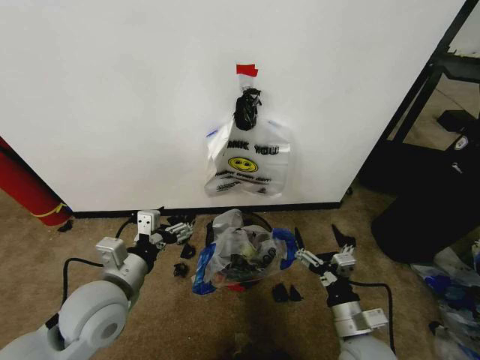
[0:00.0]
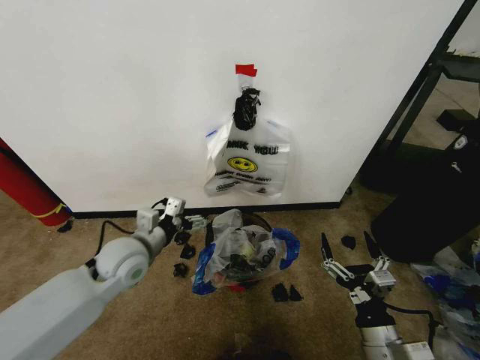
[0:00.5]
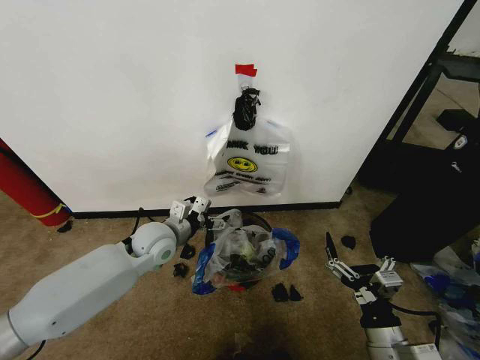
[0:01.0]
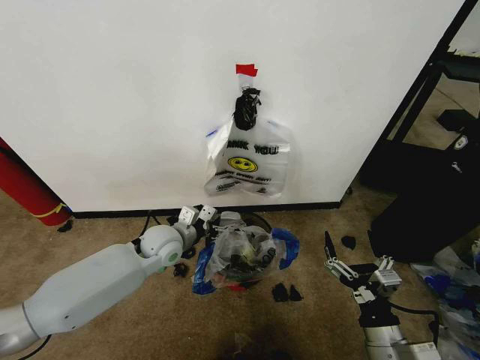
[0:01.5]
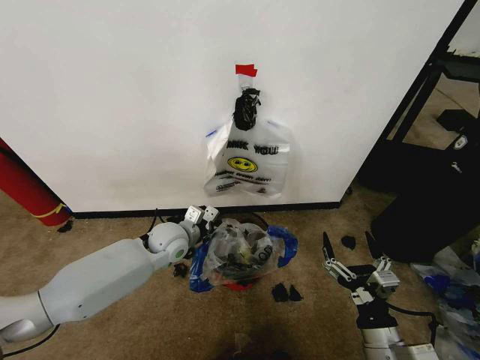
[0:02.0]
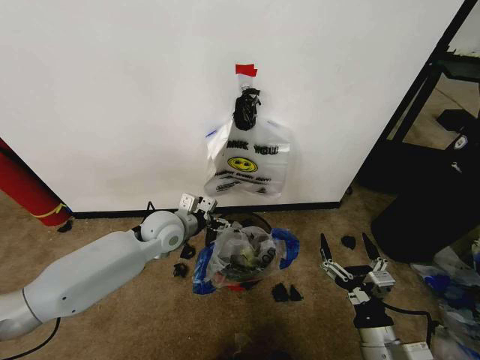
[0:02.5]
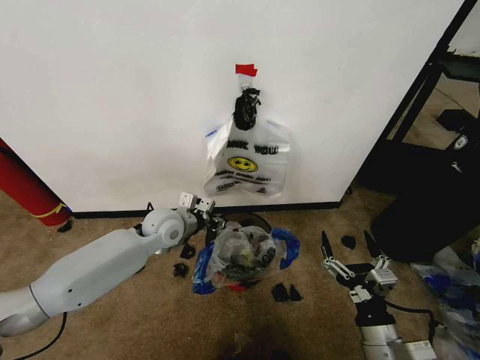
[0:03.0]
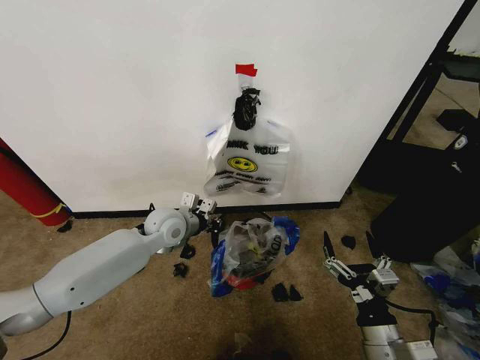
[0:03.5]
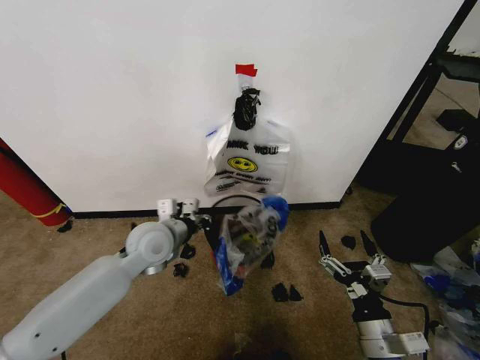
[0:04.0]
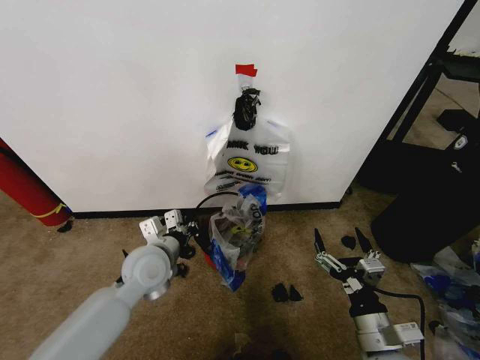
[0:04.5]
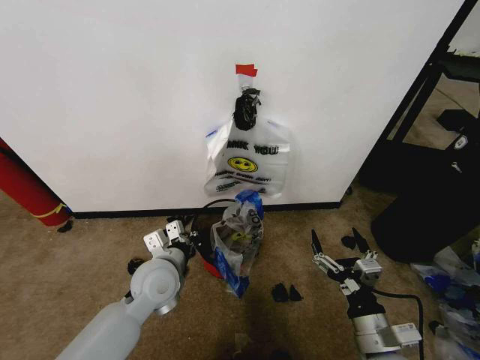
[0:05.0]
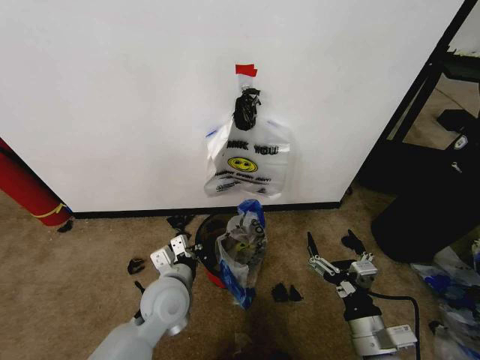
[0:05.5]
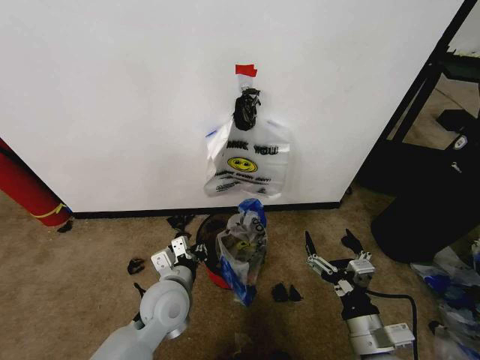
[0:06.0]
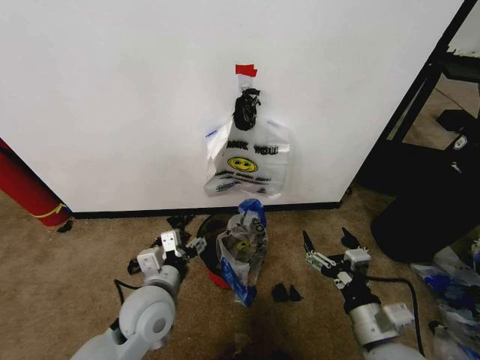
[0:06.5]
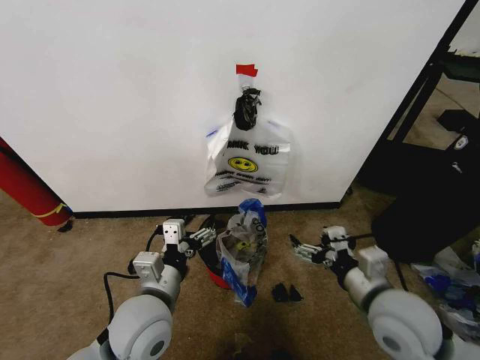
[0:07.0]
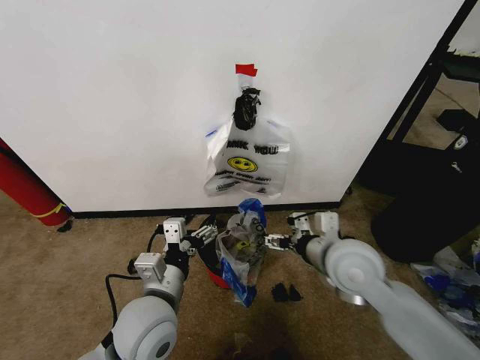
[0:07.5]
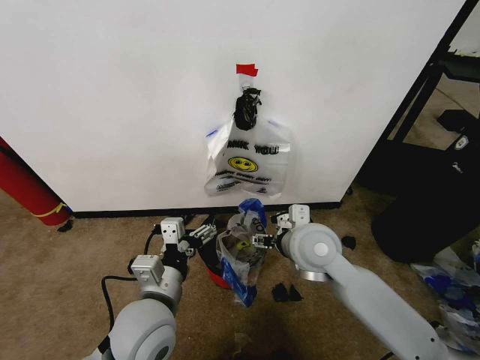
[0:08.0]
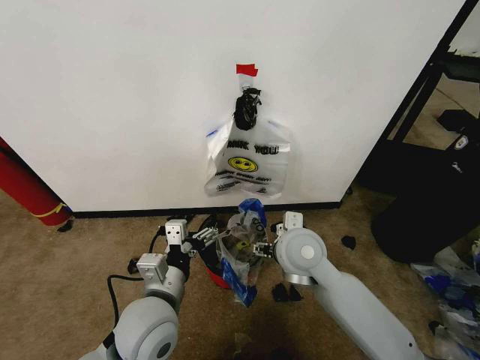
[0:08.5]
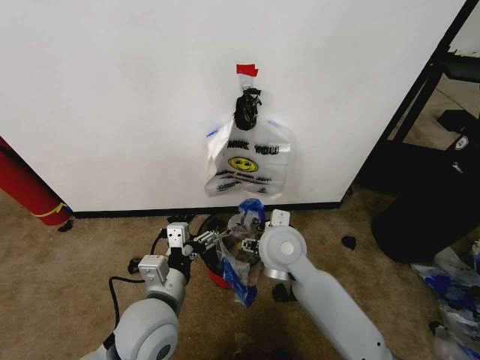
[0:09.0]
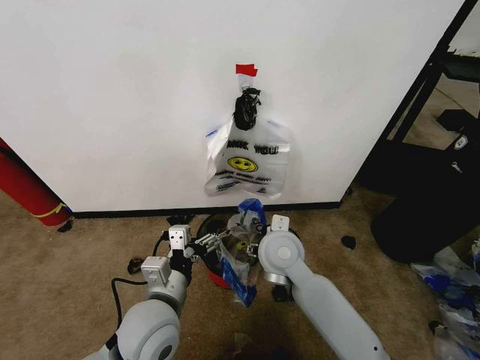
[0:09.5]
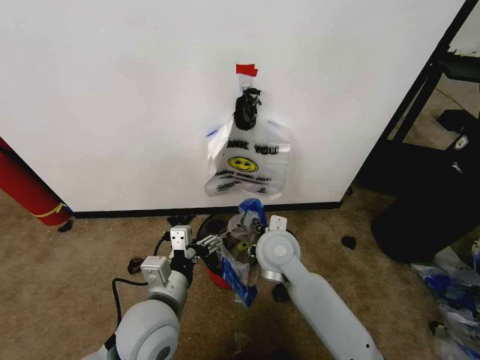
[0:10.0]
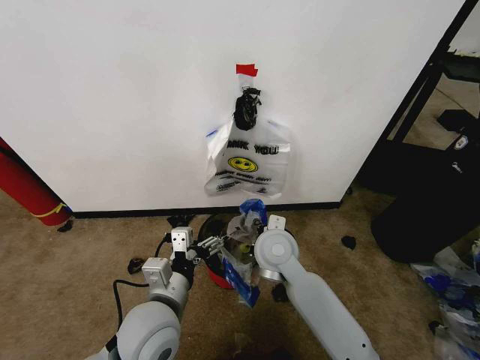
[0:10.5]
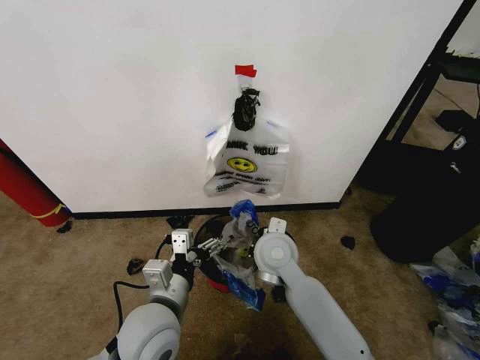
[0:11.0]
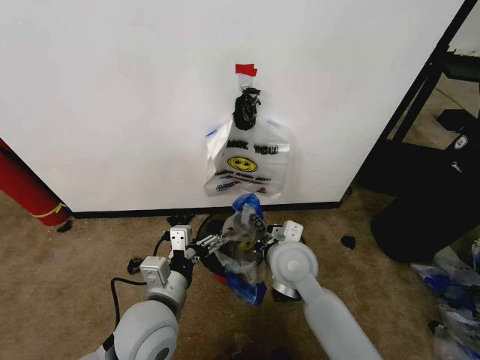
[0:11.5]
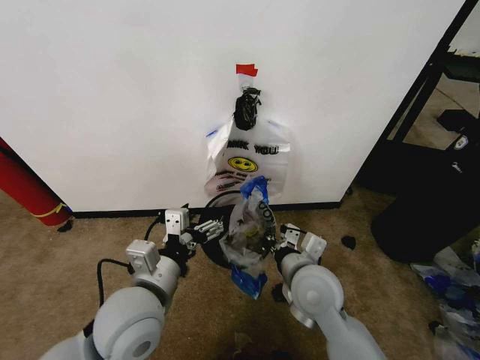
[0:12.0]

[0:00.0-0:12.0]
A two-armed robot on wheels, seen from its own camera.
Task of the whole recording: Pick up the garbage bag from the wall and place it over the trash bin.
0:00.0 to 0:02.0: The left gripper moves forward and downward, roughly 20 cm; the right gripper moves backward, about 5 cm.
0:02.0 to 0:04.0: The left gripper heads upward, covering some 5 cm, and closes up.
0:04.0 to 0:06.0: The left gripper travels backward and downward by some 15 cm.
0:06.0 to 0:08.0: The right gripper goes approximately 25 cm forward, upward and to the left; the left gripper travels upward and backward by some 10 cm, and opens its fingers.
0:08.0 to 0:10.0: The right gripper heads to the left, covering roughly 5 cm.
0:10.0 to 0:12.0: The right gripper travels backward and to the right by roughly 10 cm, and closes up.

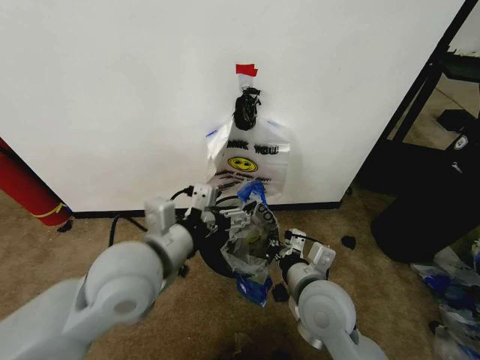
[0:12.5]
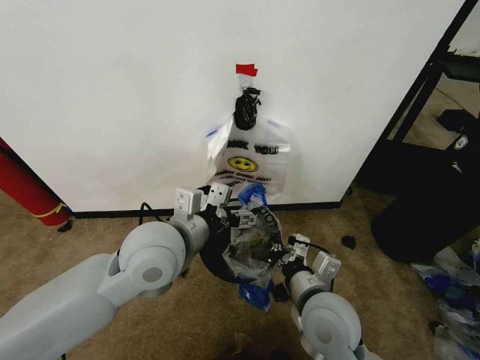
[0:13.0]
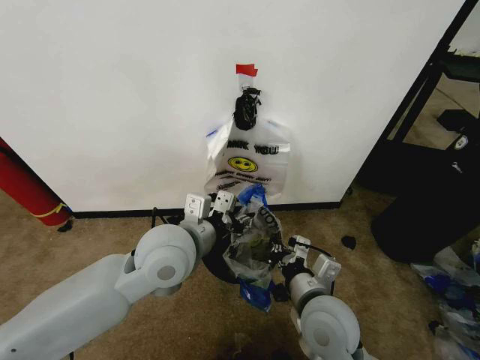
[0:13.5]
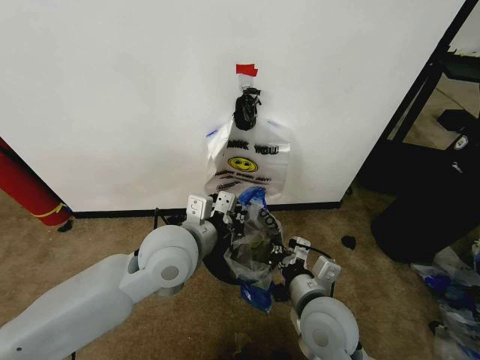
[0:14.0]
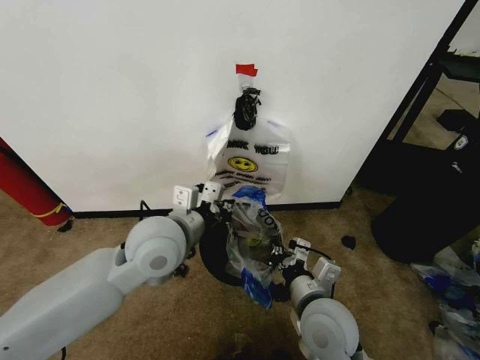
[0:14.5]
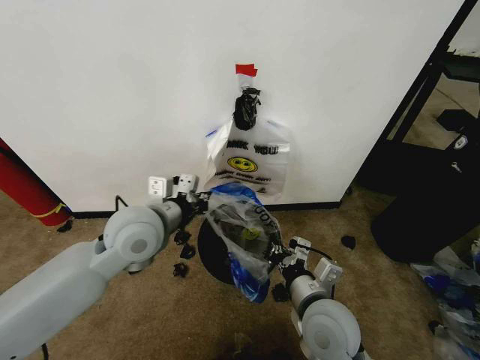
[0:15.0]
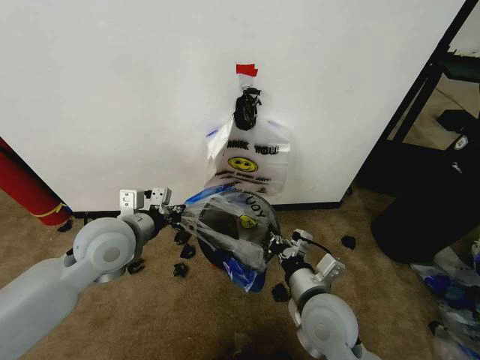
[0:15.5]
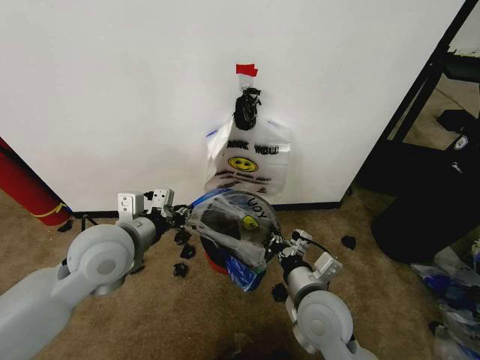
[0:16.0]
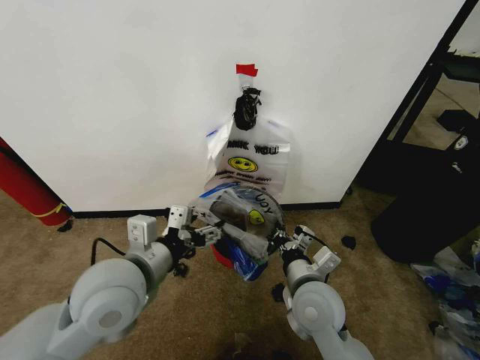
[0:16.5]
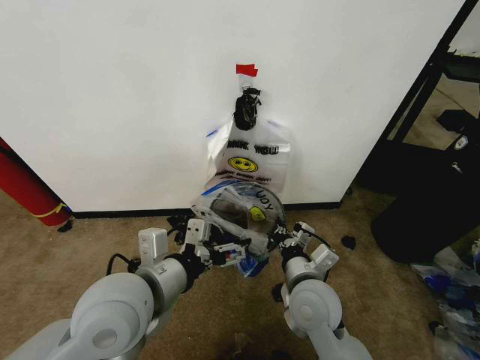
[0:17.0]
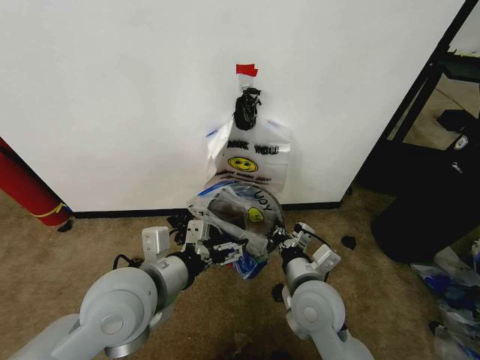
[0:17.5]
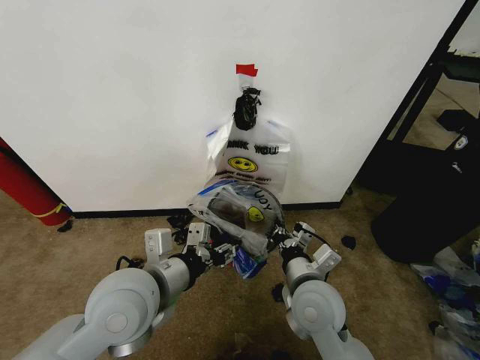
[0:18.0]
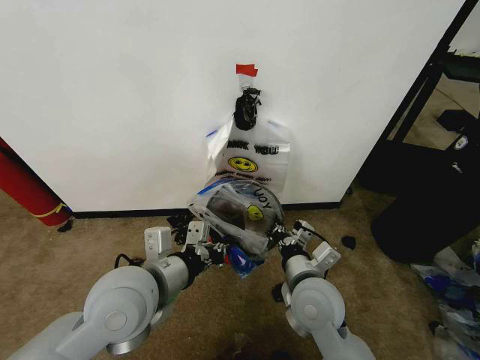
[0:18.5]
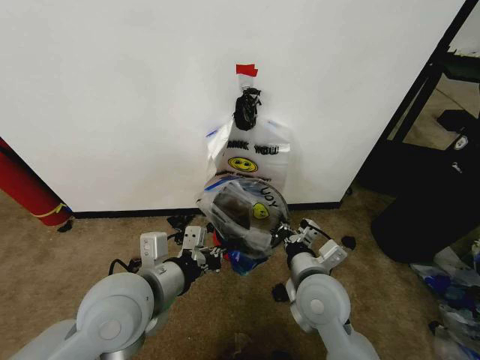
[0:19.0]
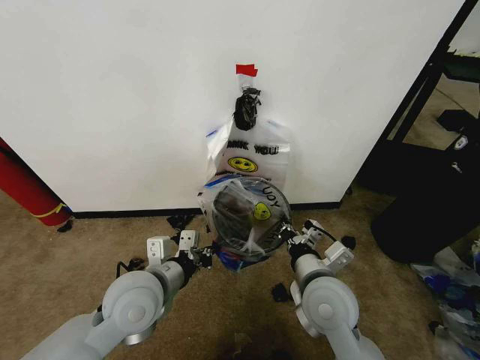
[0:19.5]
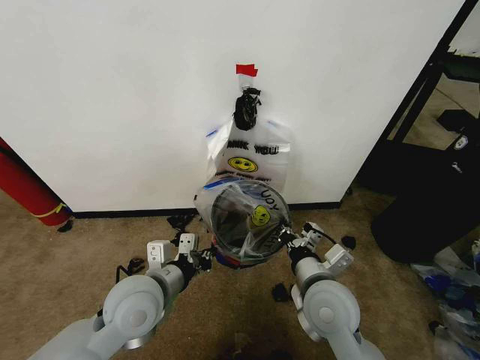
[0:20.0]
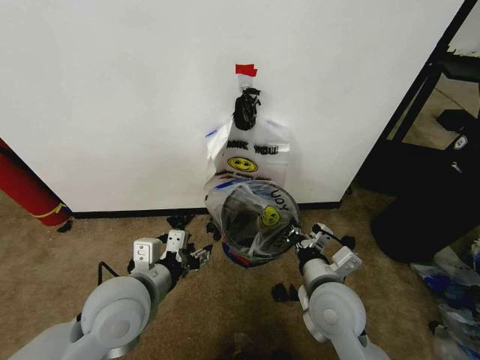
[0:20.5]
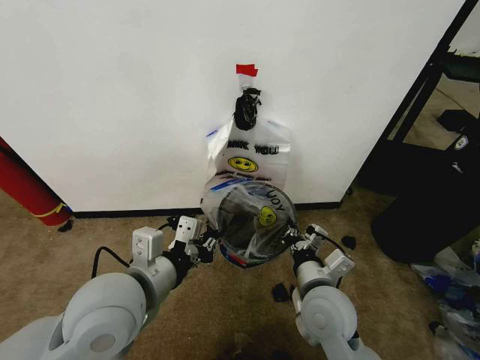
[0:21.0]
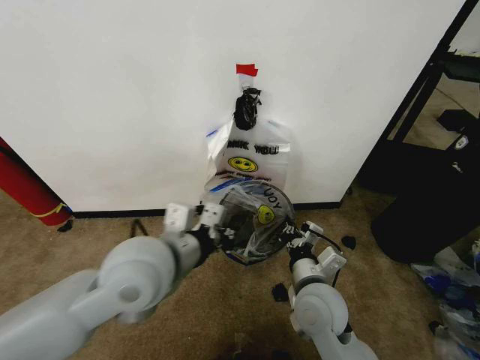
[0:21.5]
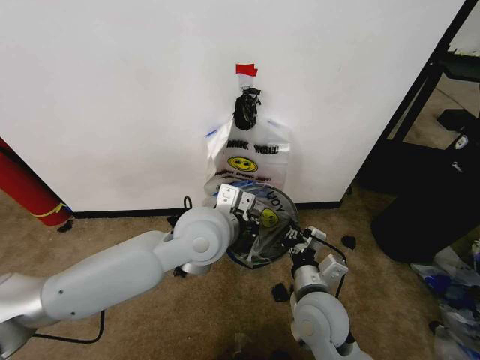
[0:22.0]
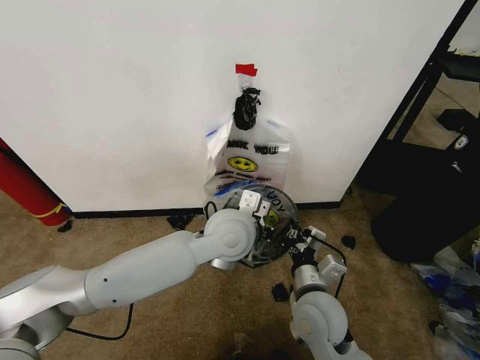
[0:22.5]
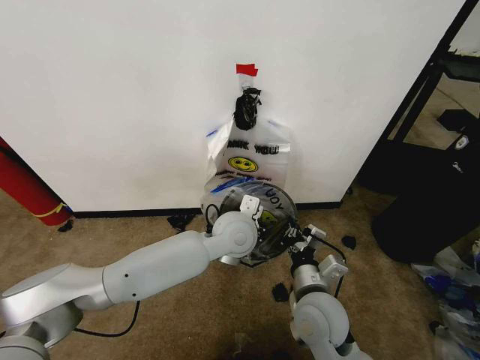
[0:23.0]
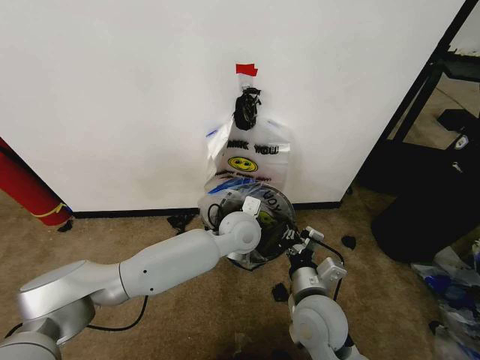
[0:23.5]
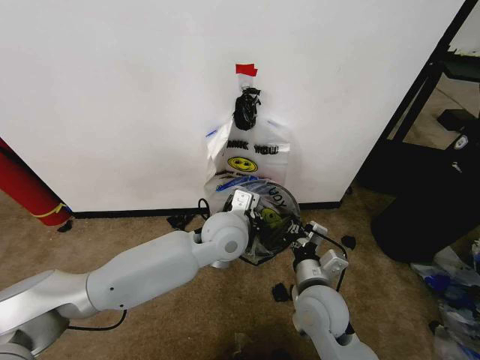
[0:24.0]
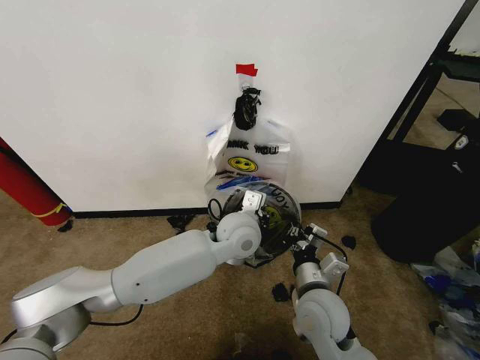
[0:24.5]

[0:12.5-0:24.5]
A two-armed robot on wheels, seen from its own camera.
Task of the whole recording: Pick up the garbage bag from the wall and place it over the trash bin.
0:12.5 to 0:14.5: The left gripper shifts roughly 5 cm forward, and closes up.
0:14.5 to 0:16.5: The left gripper moves backward and to the left, about 10 cm, and opens its fingers.
0:16.5 to 0:18.5: The left gripper closes its fingers.
0:18.5 to 0:20.5: The left gripper opens up.
0:20.5 to 0:22.5: The left gripper moves to the right and forward, some 20 cm, and closes up.
0:22.5 to 0:24.5: The left gripper shifts roughly 5 cm downward.

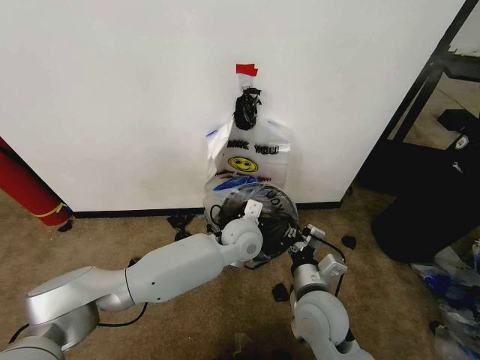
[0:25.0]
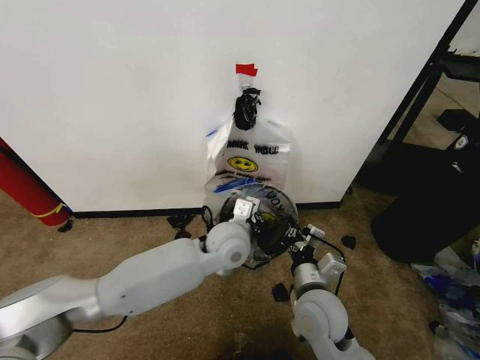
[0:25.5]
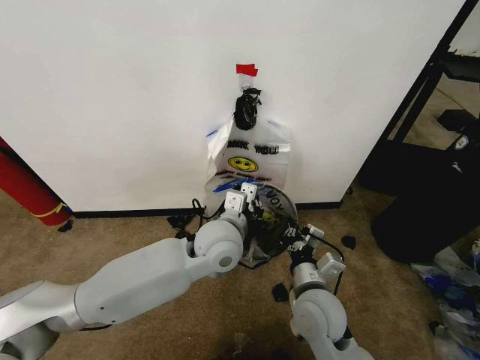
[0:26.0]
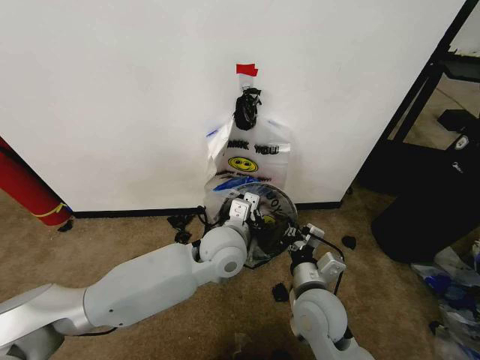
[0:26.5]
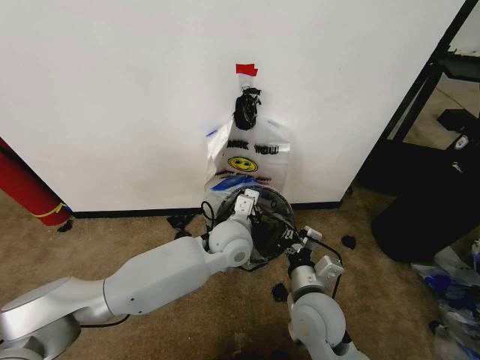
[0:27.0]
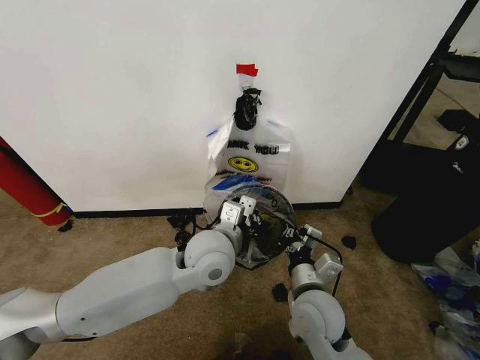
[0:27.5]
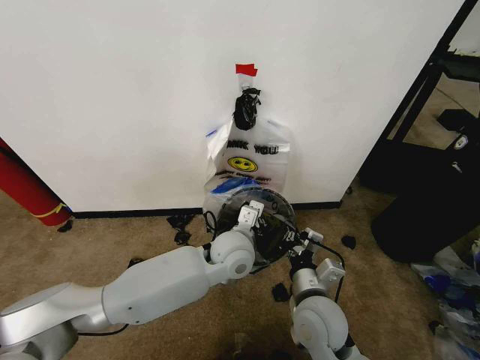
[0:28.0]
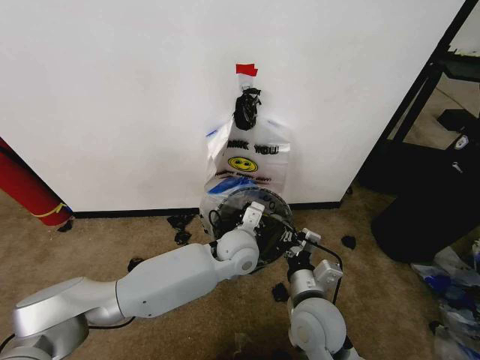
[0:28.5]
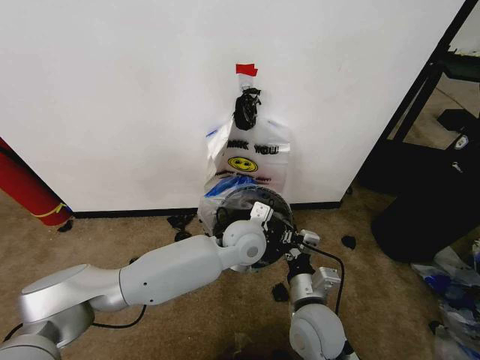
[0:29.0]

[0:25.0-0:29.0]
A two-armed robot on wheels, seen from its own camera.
Task of the whole recording: Pick up the garbage bag from the wall and place it over the trash bin.
0:27.0 to 0:29.0: The left gripper moves roughly 5 cm upward and comes back.
